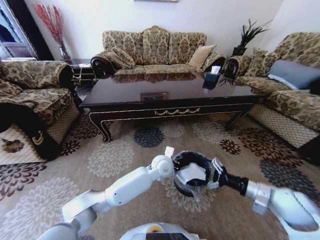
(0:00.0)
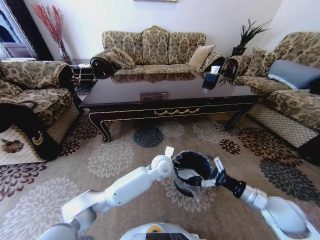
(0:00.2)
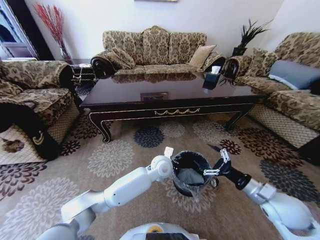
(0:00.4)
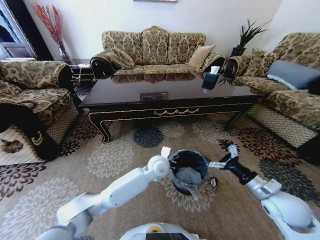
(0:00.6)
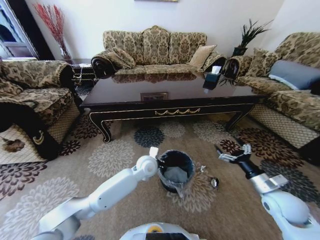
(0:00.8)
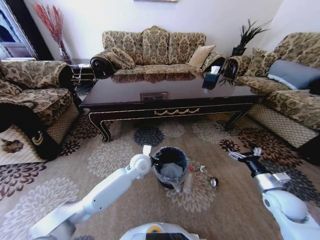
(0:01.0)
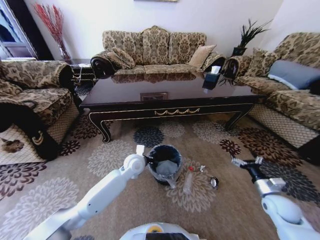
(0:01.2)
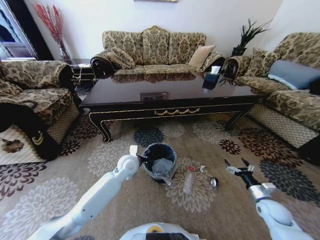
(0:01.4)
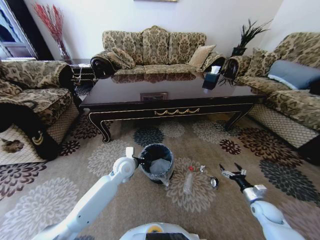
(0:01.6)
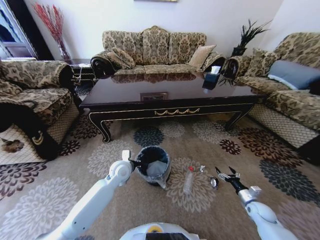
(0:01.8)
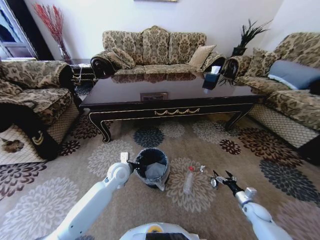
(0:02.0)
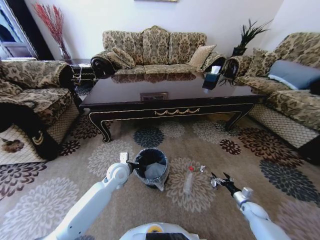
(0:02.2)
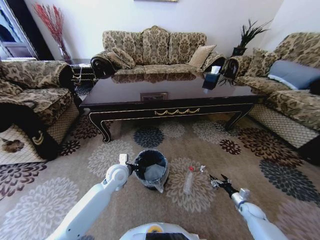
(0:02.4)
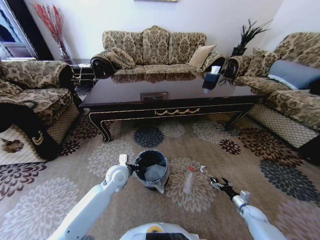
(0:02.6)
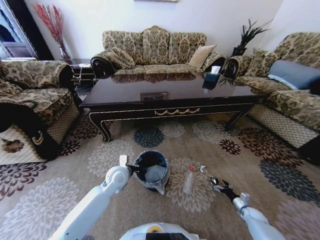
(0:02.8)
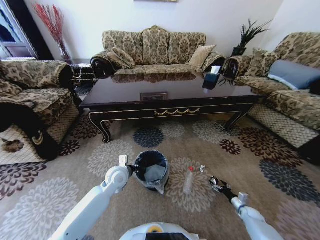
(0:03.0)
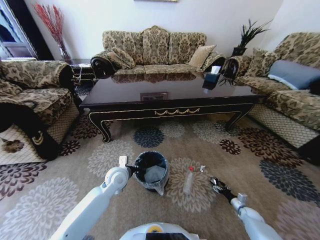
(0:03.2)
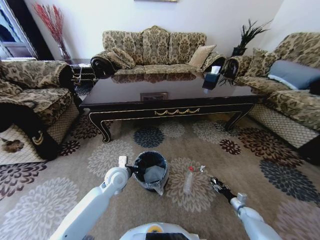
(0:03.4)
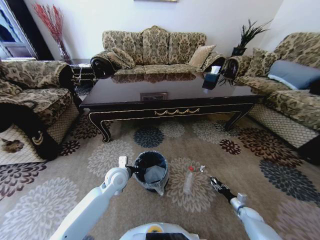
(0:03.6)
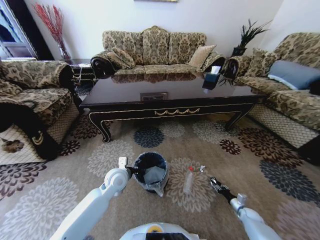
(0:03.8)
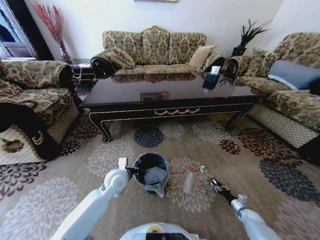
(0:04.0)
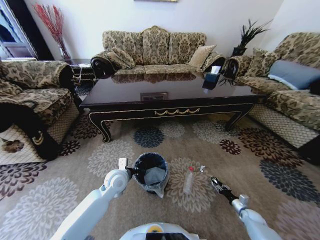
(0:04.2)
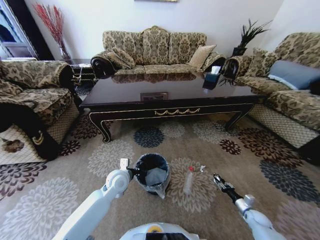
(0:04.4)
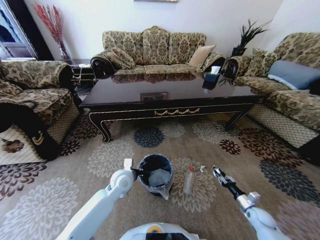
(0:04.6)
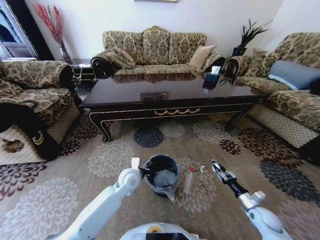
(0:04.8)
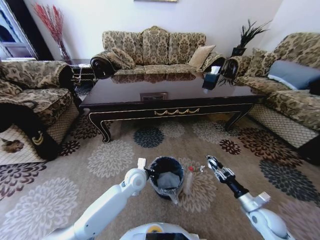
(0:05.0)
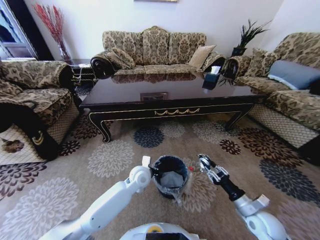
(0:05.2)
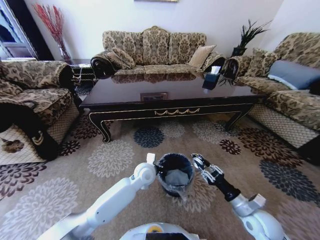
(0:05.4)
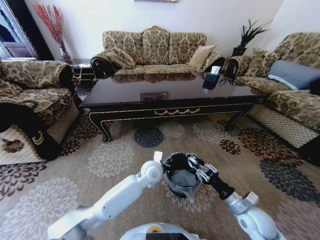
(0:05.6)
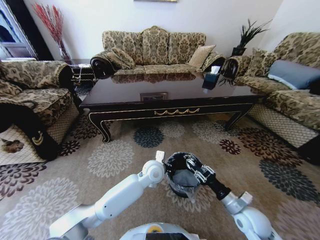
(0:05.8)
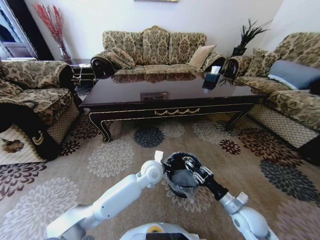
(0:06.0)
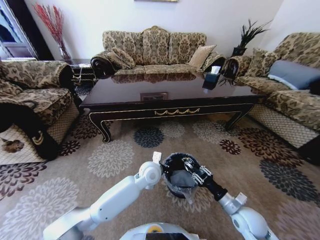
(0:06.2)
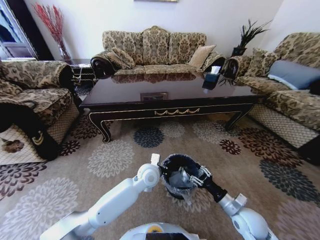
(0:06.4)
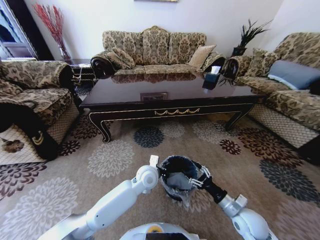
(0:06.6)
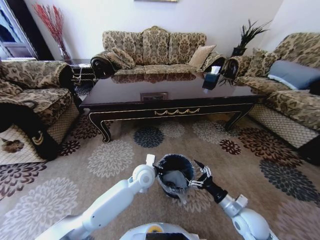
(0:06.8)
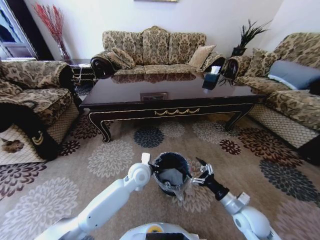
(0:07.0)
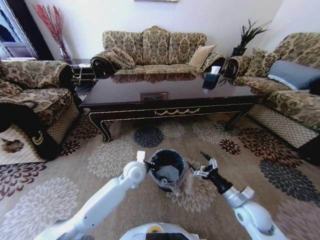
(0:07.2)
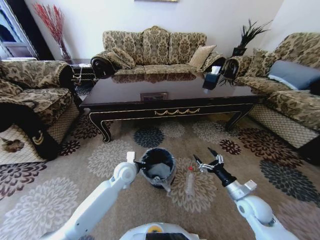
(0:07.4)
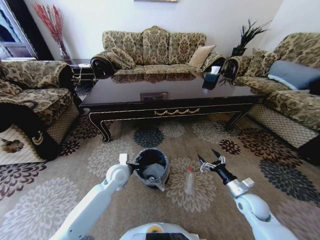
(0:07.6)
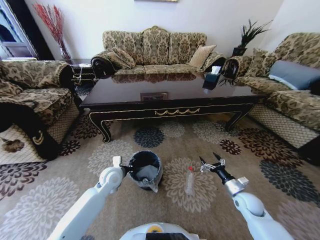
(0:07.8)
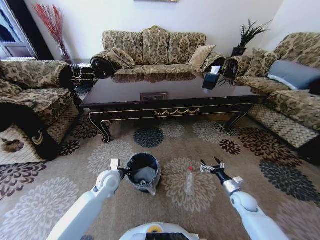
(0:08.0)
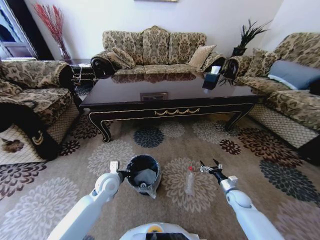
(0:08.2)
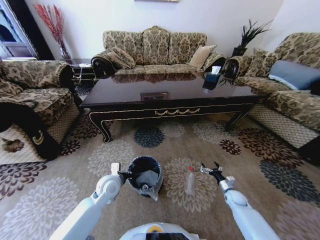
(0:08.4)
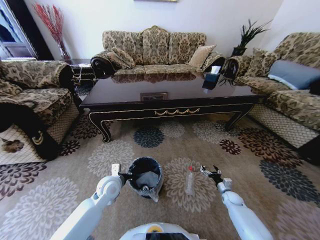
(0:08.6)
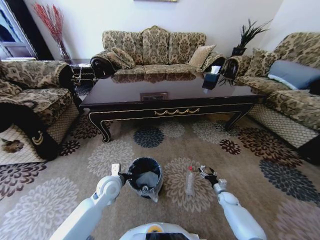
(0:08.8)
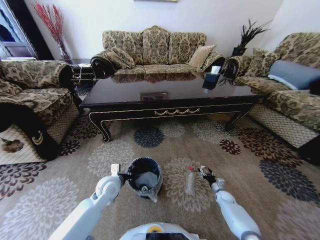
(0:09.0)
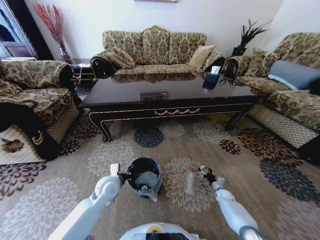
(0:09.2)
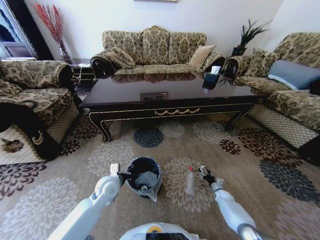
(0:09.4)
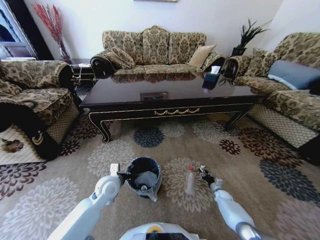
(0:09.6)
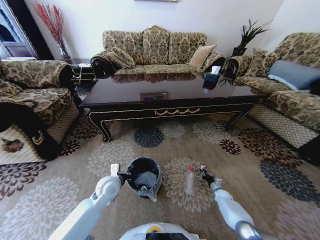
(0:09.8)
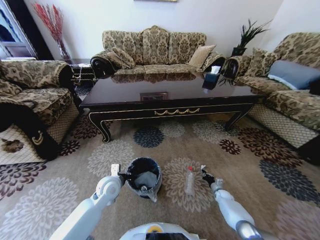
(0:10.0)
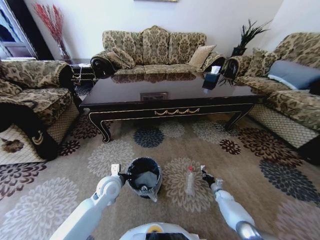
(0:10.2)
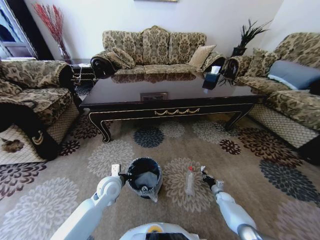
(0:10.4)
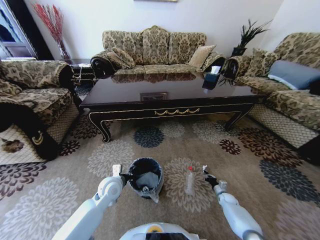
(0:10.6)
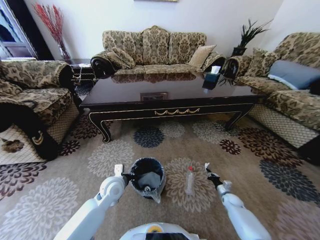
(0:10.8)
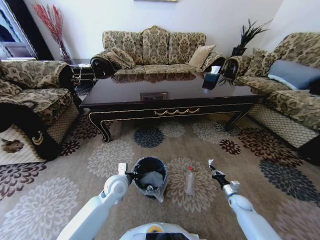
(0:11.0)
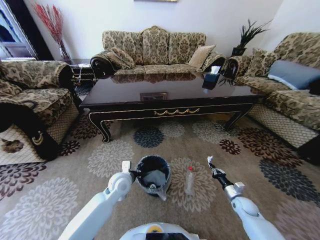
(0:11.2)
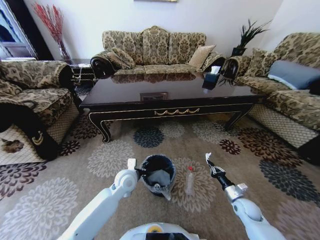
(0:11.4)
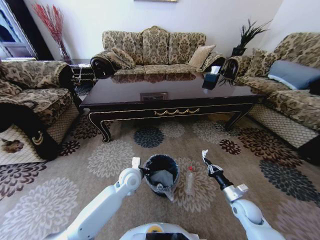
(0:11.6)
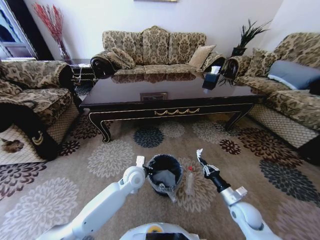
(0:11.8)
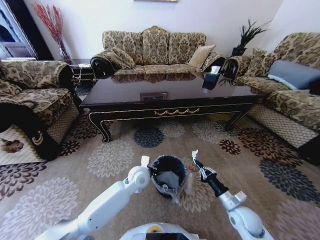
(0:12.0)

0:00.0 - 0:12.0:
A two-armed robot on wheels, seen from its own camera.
Task of the whole recording: Move to the front of the table and pick up the trash from the floor, then place it into the trash bin.
0:00.0 - 0:01.6: The right gripper goes some 25 cm downward and to the right. Meanwhile the left gripper shifts roughly 15 cm to the left.
0:01.6 - 0:03.0: The right gripper shifts roughly 15 cm downward.
0:03.0 - 0:04.4: The right gripper closes its fingers.
0:04.4 - 0:06.0: The left gripper moves to the right, about 15 cm. The right gripper goes some 30 cm upward and to the left.
0:06.0 - 0:07.6: The left gripper moves to the left, approximately 15 cm. Meanwhile the right gripper moves to the right and forward, approximately 5 cm, and opens up.
0:07.6 - 0:09.0: The right gripper shifts some 20 cm downward, while the left gripper ends up about 5 cm from where it was.
0:09.0 - 0:10.4: The right gripper closes its fingers.
0:10.4 - 0:12.0: The right gripper goes some 30 cm upward, backward and to the left; the left gripper shifts about 10 cm to the right.

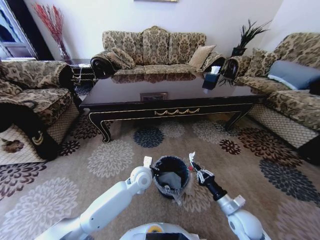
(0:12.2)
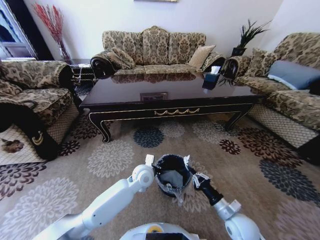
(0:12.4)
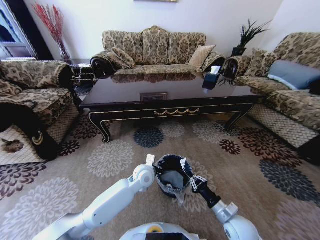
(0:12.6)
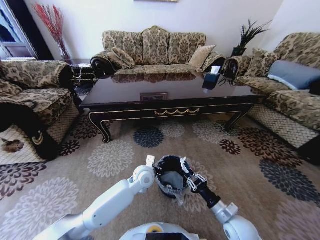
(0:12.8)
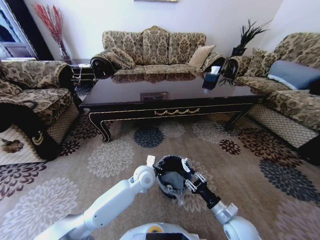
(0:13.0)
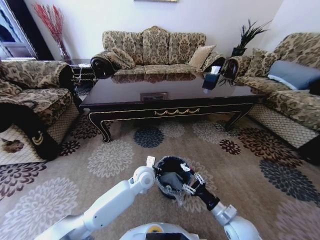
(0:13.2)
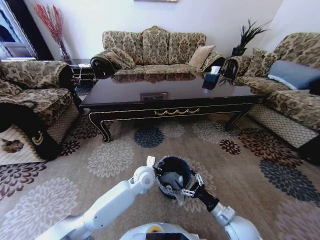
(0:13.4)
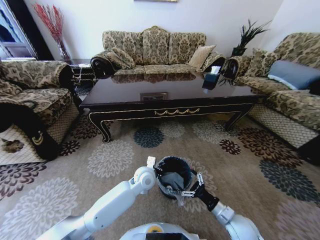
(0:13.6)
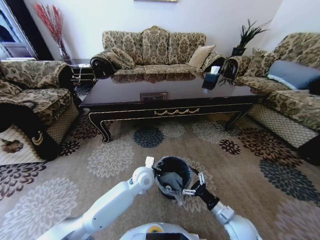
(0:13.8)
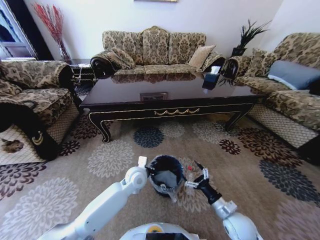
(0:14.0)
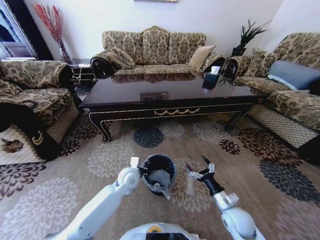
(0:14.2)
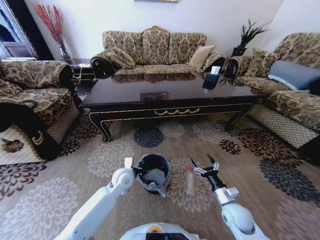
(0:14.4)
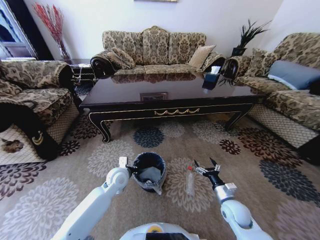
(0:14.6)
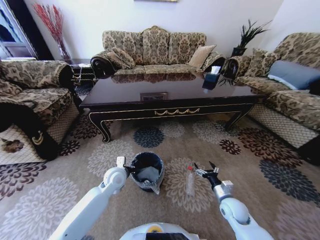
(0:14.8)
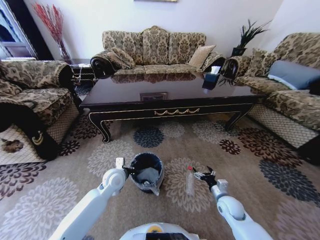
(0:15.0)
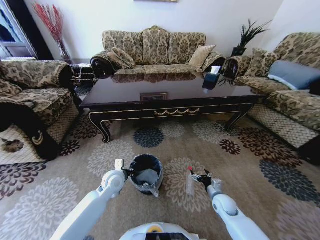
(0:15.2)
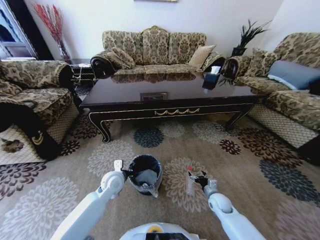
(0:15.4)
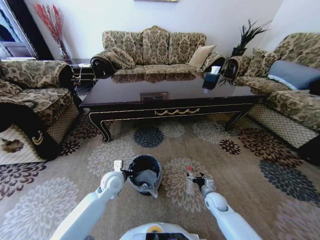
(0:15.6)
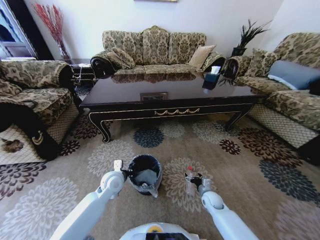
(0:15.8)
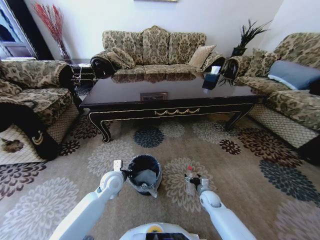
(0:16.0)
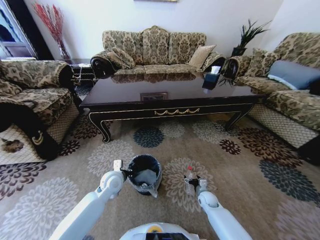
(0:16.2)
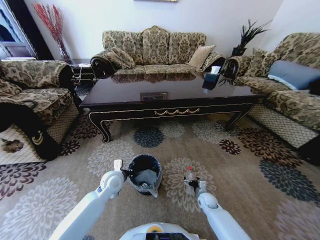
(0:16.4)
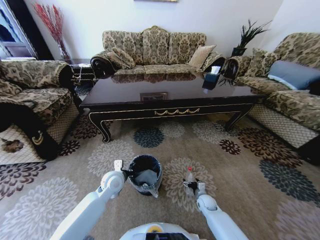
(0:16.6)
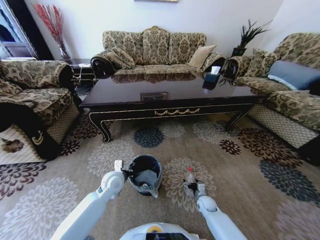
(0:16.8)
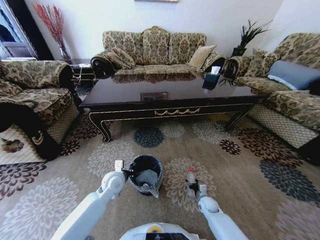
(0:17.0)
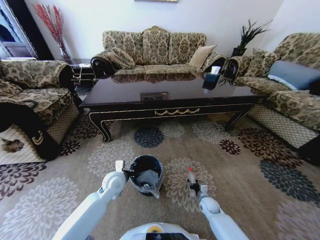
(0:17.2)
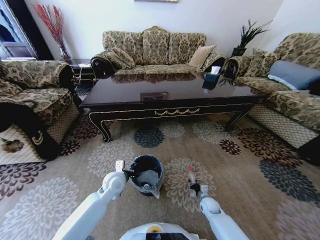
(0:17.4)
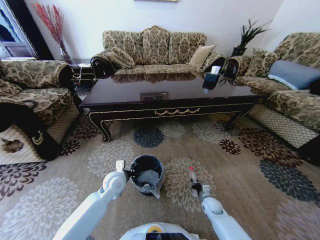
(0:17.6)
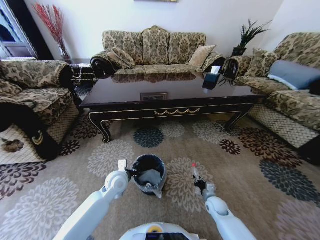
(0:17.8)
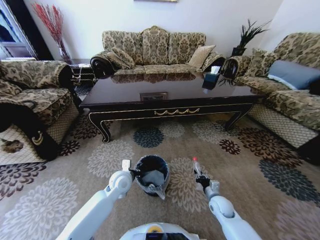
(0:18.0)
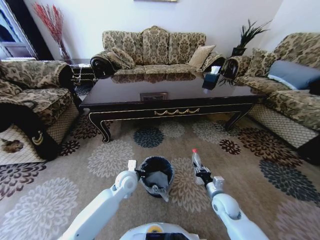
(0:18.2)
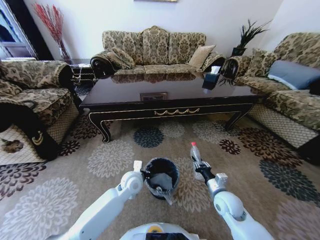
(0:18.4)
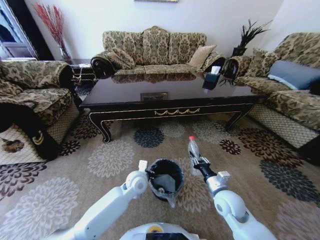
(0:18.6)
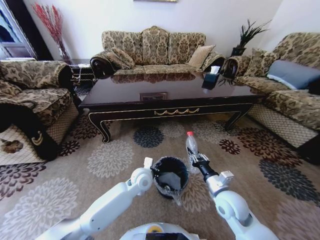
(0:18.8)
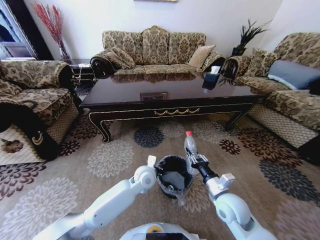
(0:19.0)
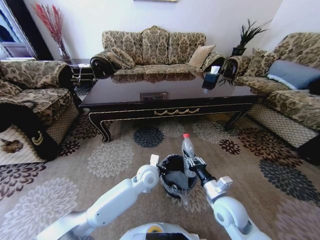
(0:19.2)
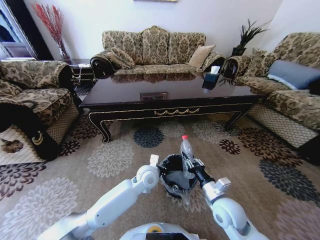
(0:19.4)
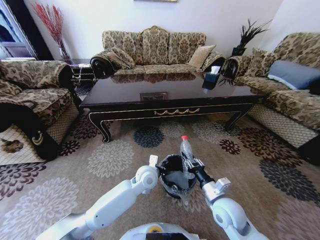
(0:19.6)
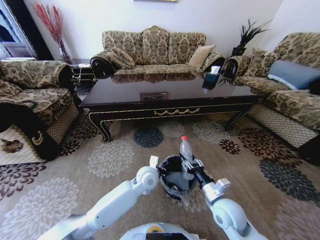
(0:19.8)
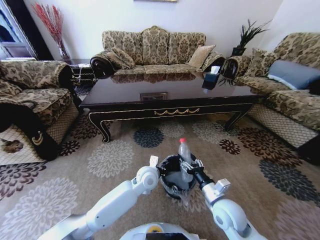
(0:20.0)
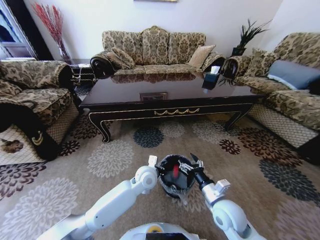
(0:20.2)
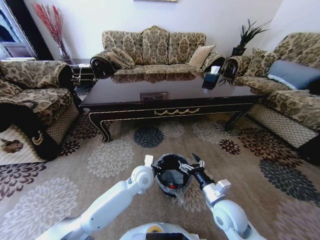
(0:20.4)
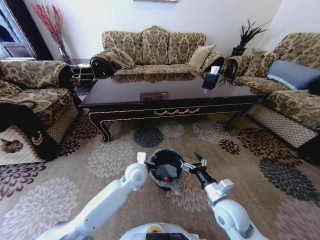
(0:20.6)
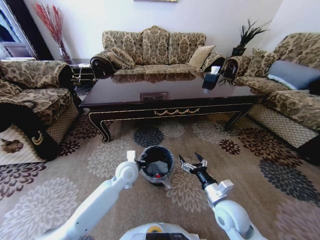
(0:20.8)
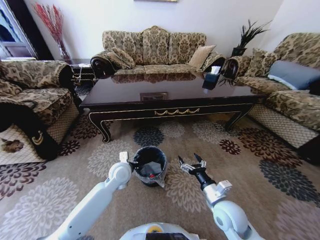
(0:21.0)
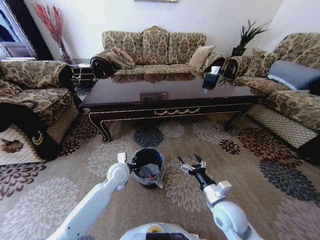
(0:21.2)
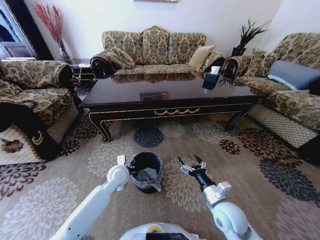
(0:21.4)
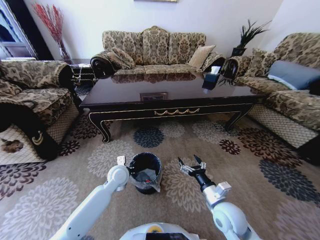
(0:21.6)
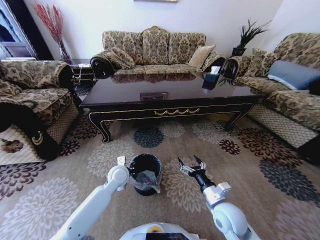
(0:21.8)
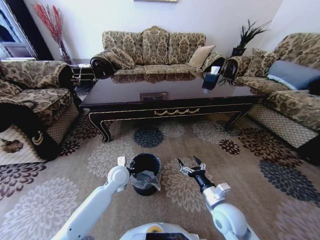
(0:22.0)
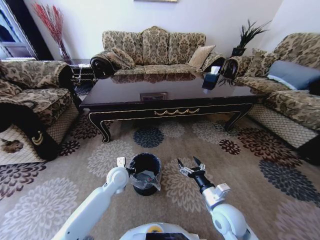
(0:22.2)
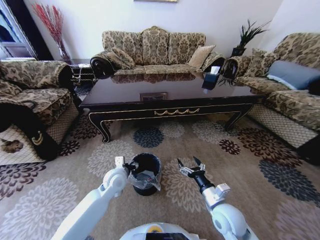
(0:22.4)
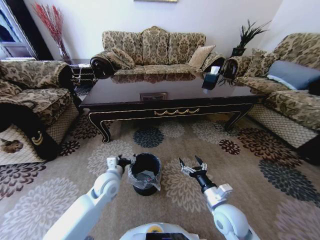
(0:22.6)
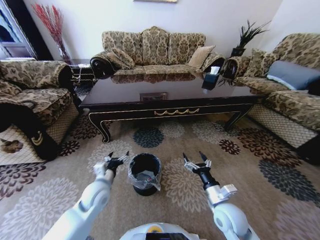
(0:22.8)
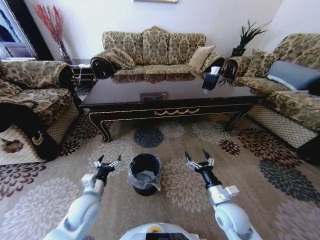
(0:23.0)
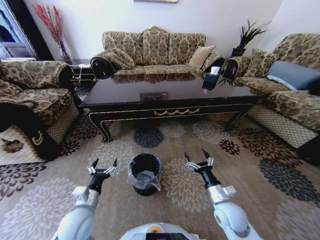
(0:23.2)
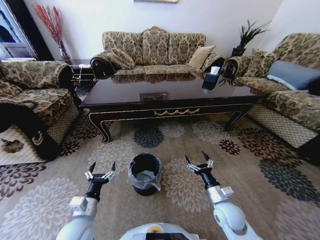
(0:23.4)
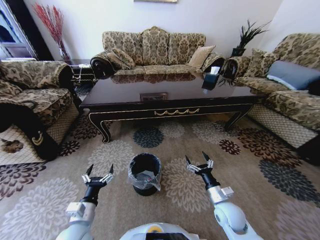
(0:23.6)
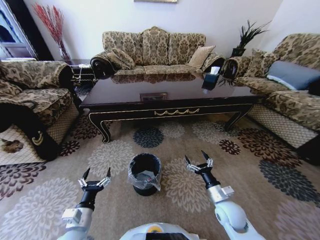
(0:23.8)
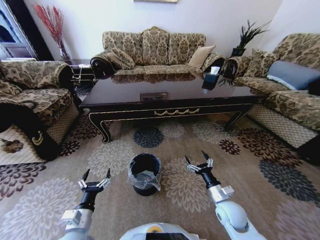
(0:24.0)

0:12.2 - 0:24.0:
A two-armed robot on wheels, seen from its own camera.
Task of the whole recording: Move to the front of the table and pick up the trash from the floor, then place it into the trash bin.
0:12.2 - 0:13.6: The right gripper opens.
0:13.6 - 0:15.2: The left gripper heads to the left, covering about 15 cm. The right gripper is displaced forward and downward by approximately 10 cm.
0:15.2 - 0:16.6: The right gripper shifts about 10 cm downward.
0:16.6 - 0:18.2: The left gripper heads to the right, covering about 5 cm, while the right gripper shifts some 15 cm upward, and closes up.
0:18.2 - 0:19.6: The right gripper shifts roughly 10 cm upward and to the left; the left gripper goes about 10 cm to the right.
0:19.6 - 0:21.0: The left gripper heads to the left, covering approximately 10 cm, while the right gripper opens its fingers.
0:21.0 - 0:22.6: The left gripper ends up some 5 cm from where it was, and opens its fingers.
0:22.6 - 0:24.0: The right gripper goes some 5 cm downward; the left gripper travels backward and to the left by about 20 cm.
